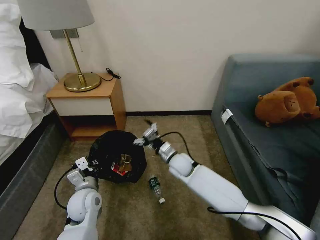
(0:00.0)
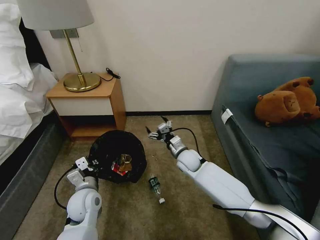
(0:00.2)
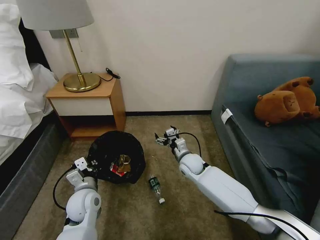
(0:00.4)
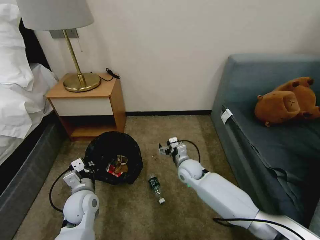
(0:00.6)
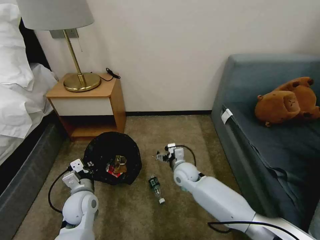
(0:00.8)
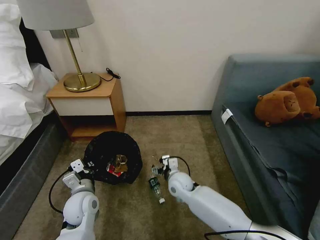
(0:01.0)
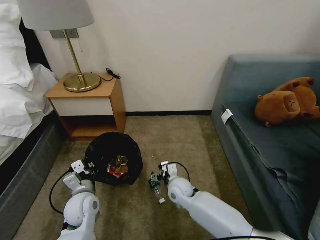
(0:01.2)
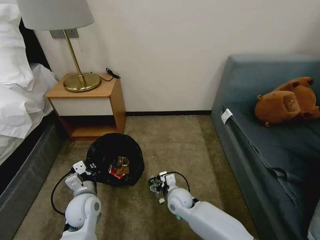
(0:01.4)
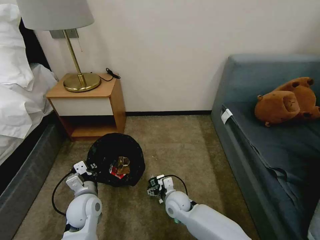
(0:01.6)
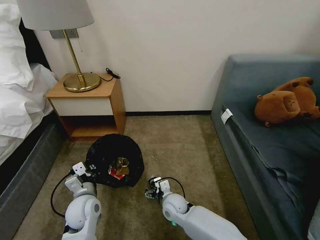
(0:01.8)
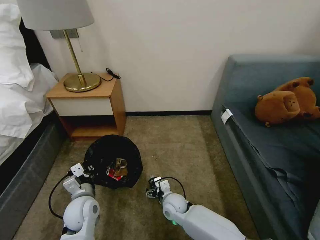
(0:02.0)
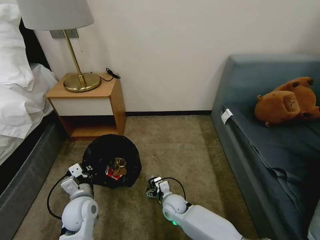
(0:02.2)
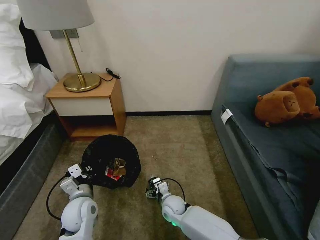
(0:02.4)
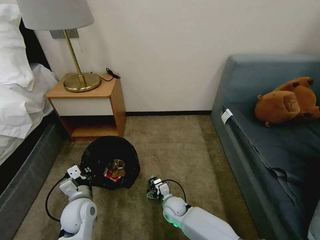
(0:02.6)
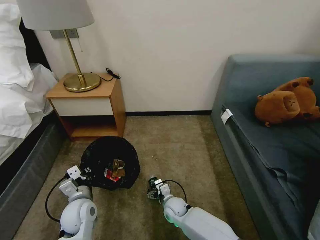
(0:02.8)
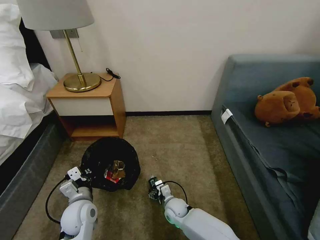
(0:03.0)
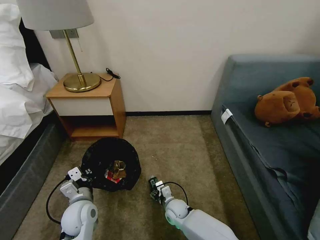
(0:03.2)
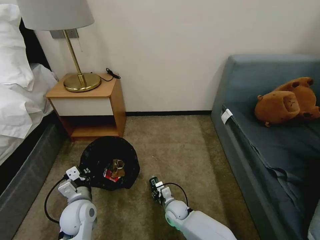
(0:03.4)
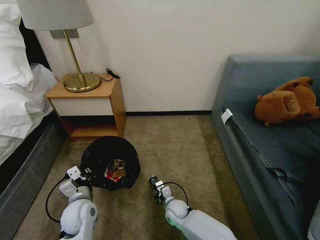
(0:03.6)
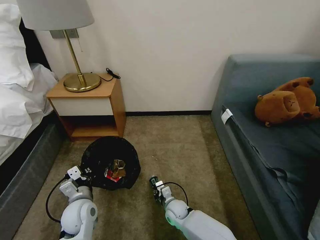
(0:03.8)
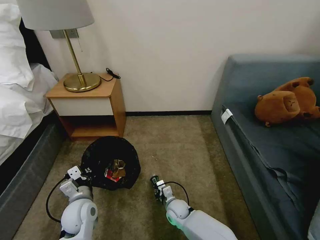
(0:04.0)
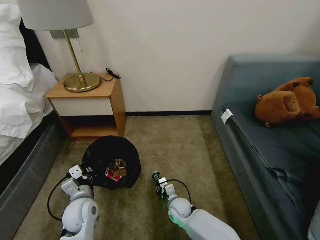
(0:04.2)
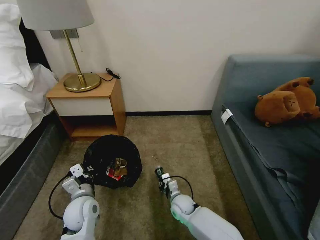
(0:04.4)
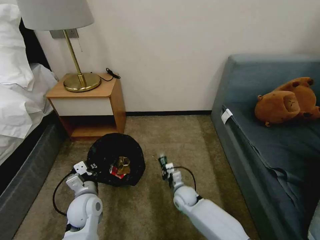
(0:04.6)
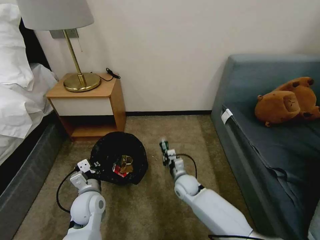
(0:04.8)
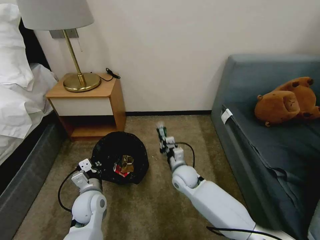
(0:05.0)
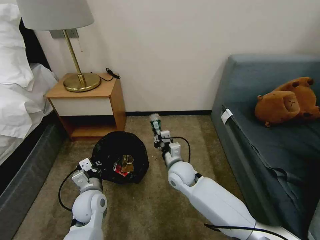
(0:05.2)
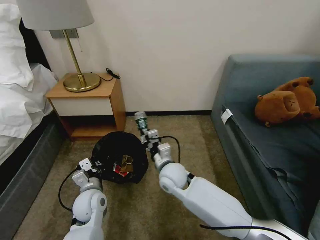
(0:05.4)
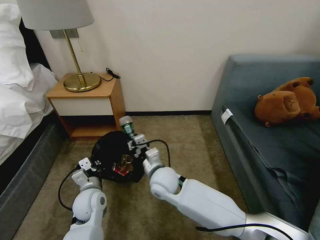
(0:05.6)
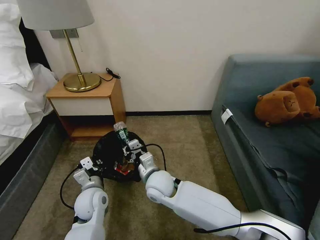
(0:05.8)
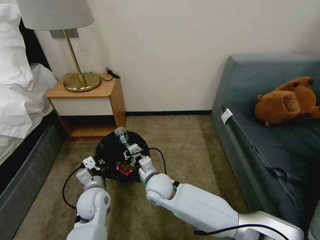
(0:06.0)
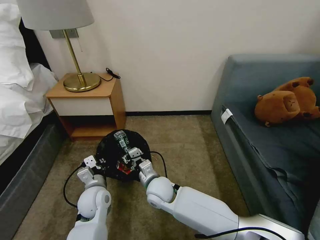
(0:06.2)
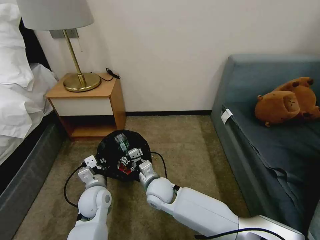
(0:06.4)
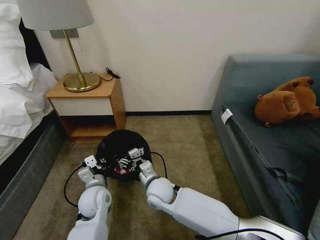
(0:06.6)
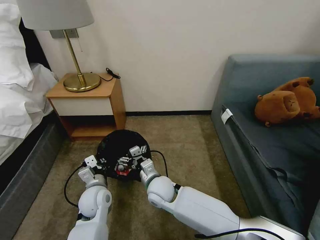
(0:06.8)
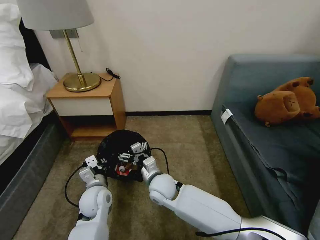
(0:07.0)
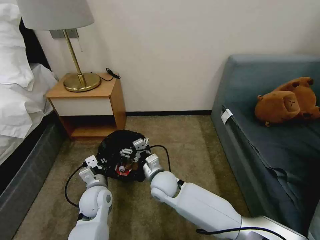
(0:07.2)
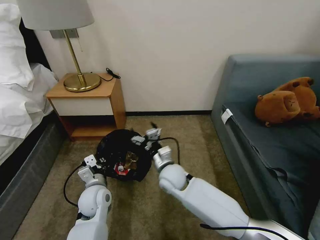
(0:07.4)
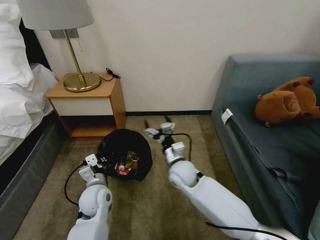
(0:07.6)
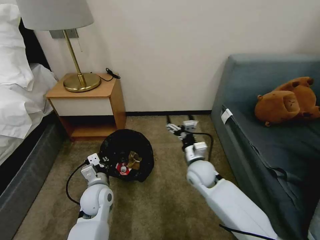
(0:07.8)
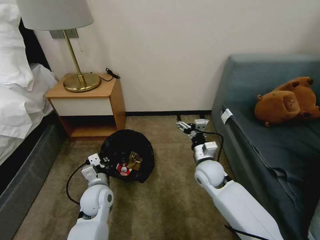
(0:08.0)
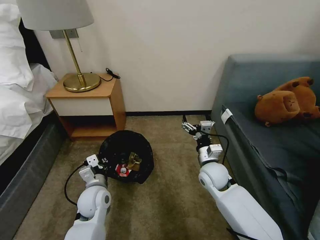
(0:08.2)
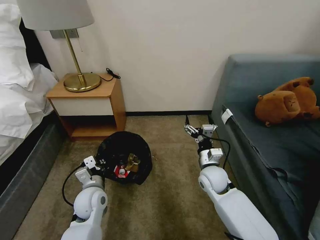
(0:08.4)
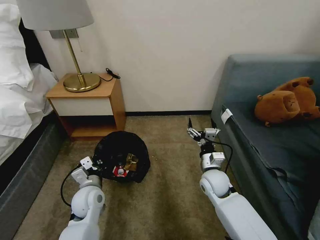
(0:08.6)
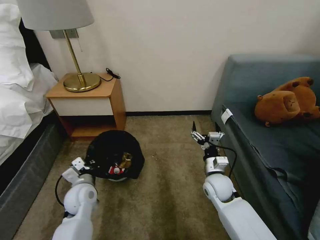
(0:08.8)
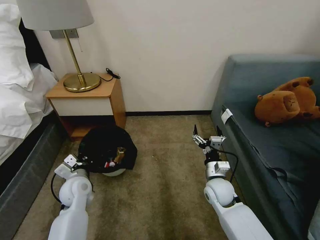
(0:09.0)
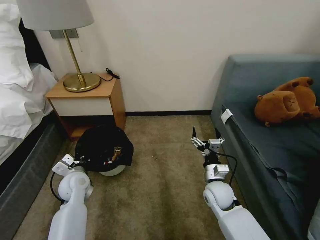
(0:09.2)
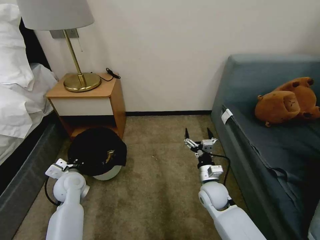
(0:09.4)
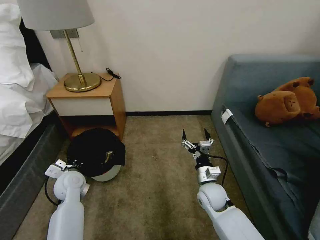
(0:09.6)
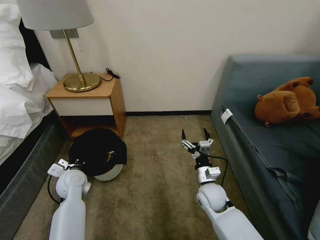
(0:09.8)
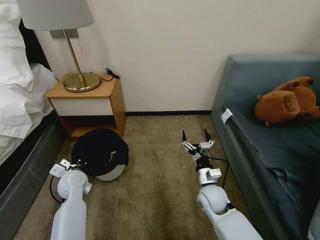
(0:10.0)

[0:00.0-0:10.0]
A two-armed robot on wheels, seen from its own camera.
Task of the whole recording: Pick up the trash bin, then pick up the garbage on the floor and place it into the trash bin.
0:00.0 to 0:01.4: The right gripper heads backward and downward, covering approximately 15 cm.
0:01.4 to 0:02.8: The right gripper travels downward by some 10 cm.
0:02.8 to 0:04.2: The right gripper closes up.
0:04.2 to 0:05.8: The right gripper travels upward and to the left by some 20 cm.
0:05.8 to 0:07.2: The right gripper opens its fingers.
0:07.2 to 0:08.6: The right gripper goes roughly 20 cm to the right.
0:08.6 to 0:10.0: The right gripper moves approximately 5 cm. The left gripper travels to the left and forward by some 10 cm.

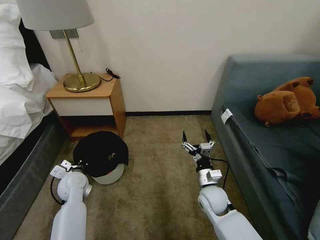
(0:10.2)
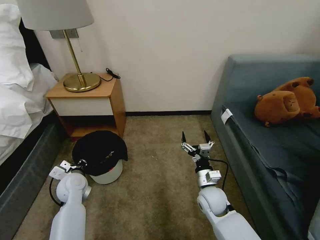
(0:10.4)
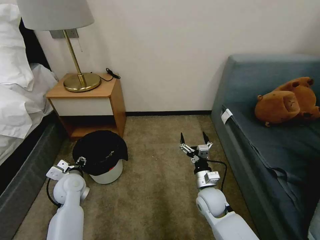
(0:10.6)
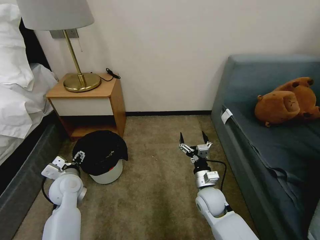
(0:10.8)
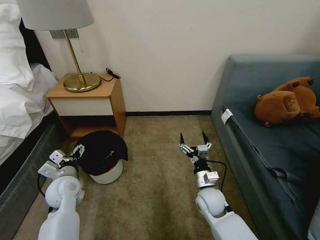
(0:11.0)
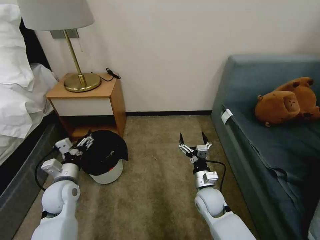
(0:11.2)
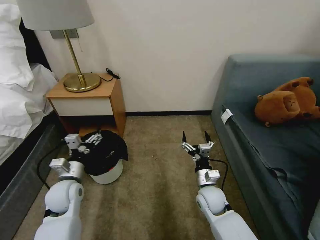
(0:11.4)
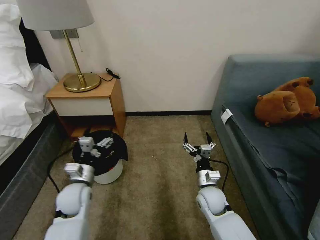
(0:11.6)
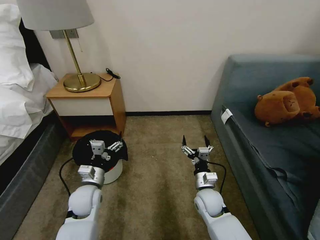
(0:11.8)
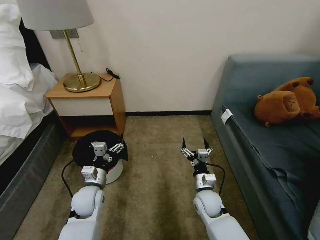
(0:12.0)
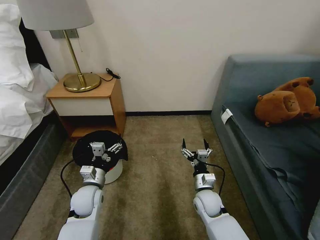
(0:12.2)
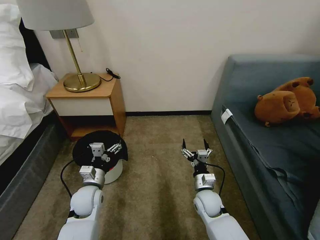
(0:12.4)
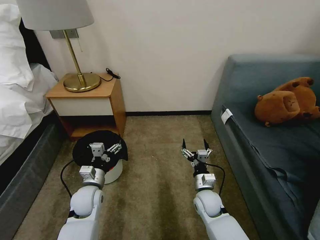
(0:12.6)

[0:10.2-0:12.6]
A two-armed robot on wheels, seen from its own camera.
Task of the whole recording: Pick up the trash bin, then pick up the garbage on the floor and place it into the trash bin.
0:10.2 to 0:11.4: The left gripper moves roughly 5 cm, and opens up.
0:11.4 to 0:12.6: The left gripper shifts roughly 10 cm to the right and downward.
